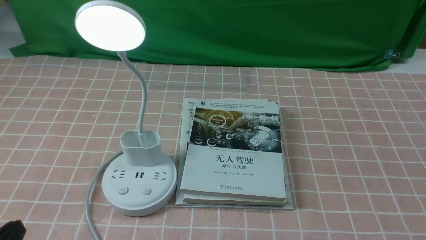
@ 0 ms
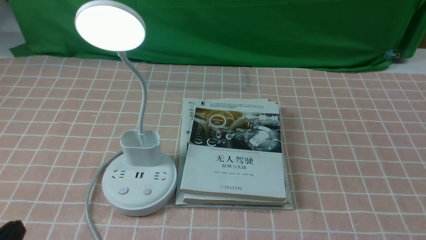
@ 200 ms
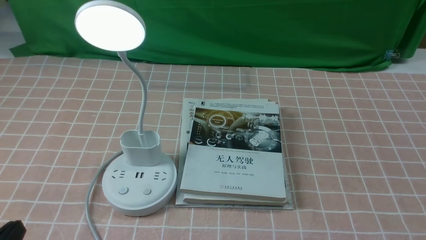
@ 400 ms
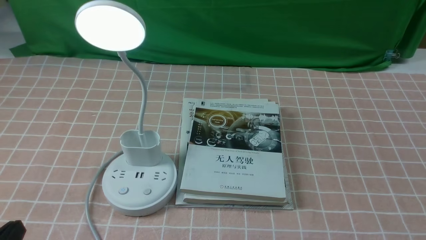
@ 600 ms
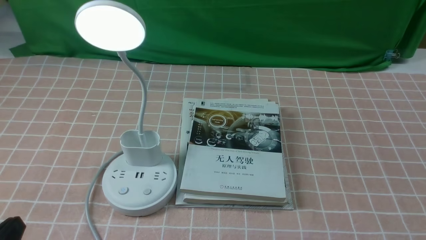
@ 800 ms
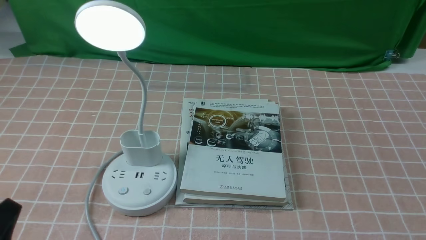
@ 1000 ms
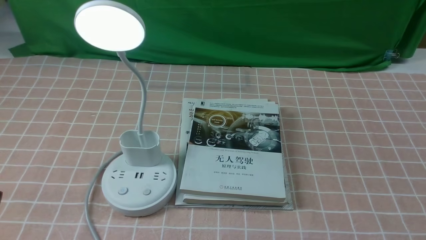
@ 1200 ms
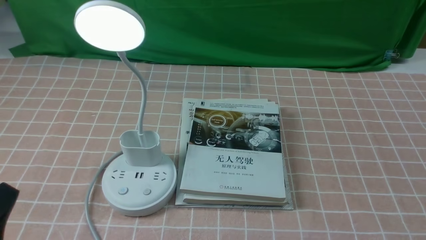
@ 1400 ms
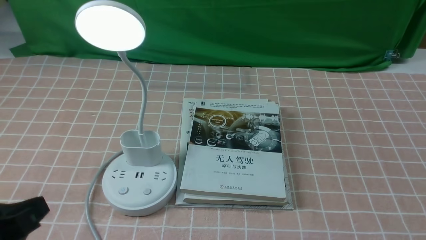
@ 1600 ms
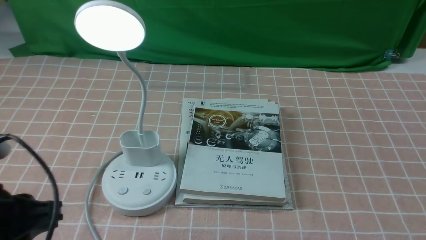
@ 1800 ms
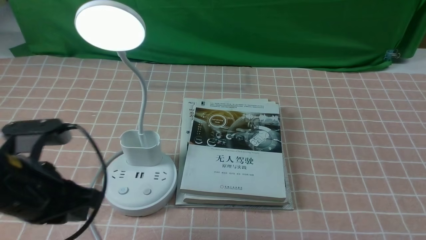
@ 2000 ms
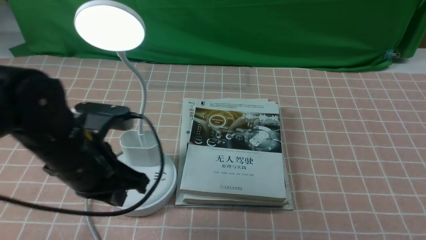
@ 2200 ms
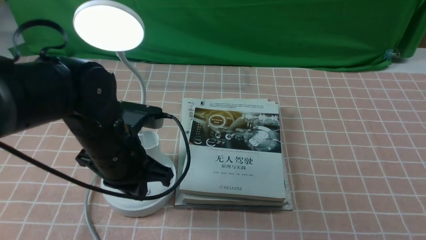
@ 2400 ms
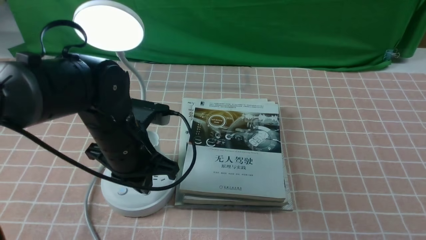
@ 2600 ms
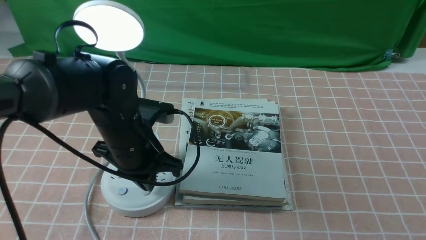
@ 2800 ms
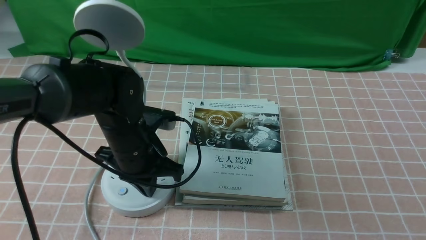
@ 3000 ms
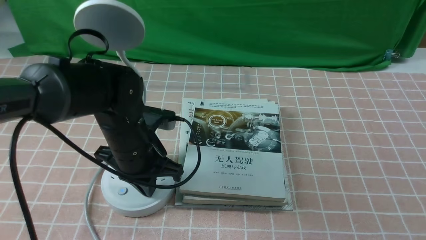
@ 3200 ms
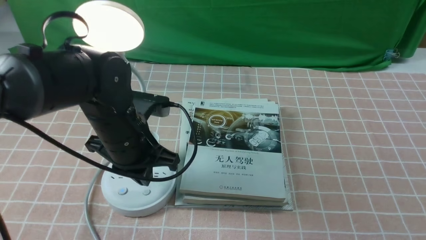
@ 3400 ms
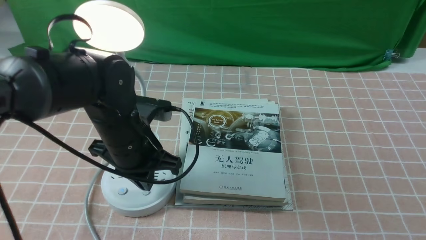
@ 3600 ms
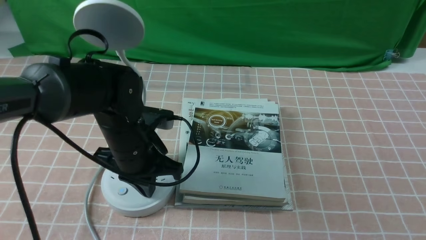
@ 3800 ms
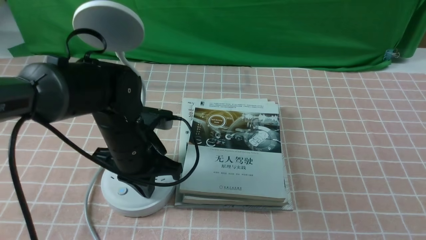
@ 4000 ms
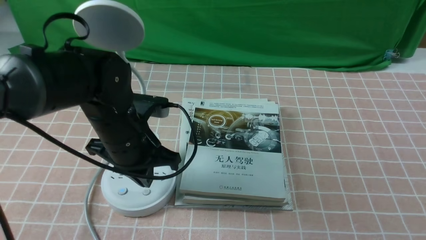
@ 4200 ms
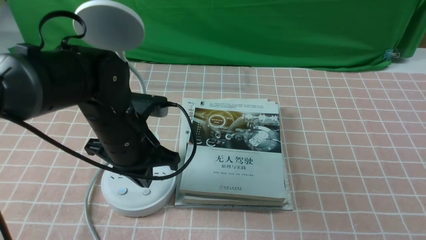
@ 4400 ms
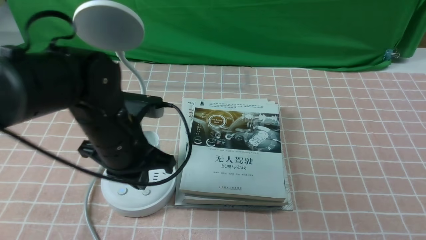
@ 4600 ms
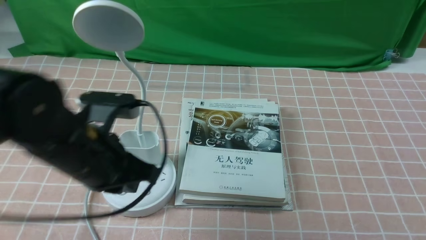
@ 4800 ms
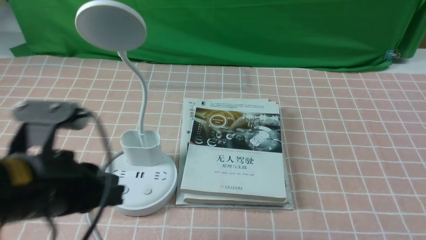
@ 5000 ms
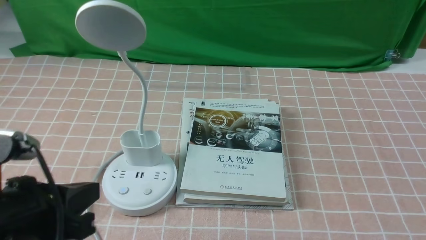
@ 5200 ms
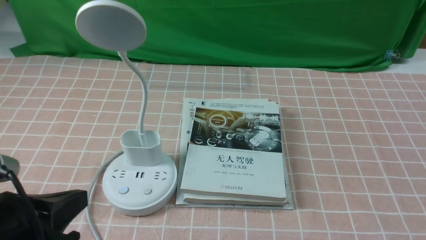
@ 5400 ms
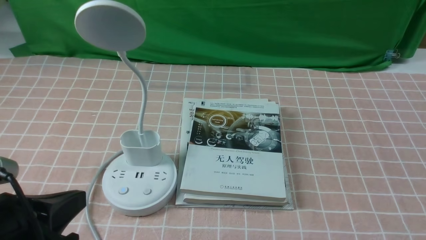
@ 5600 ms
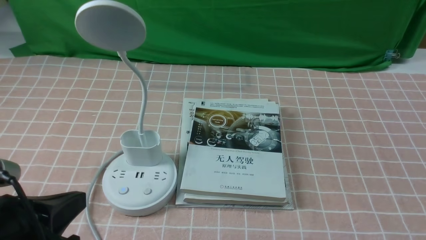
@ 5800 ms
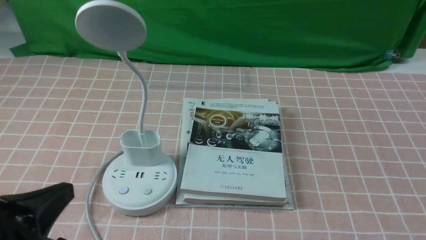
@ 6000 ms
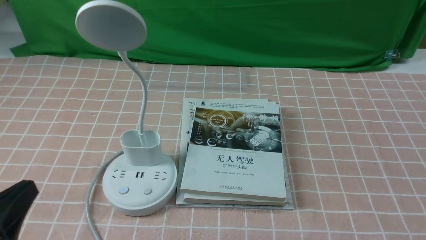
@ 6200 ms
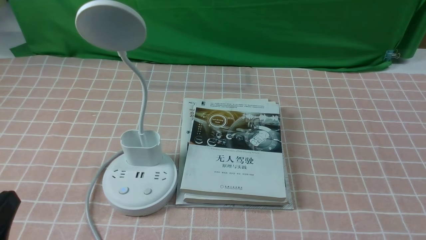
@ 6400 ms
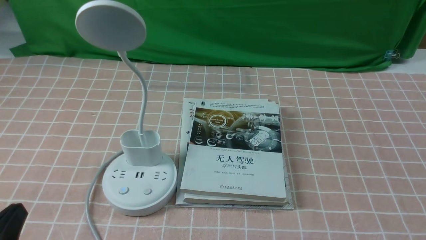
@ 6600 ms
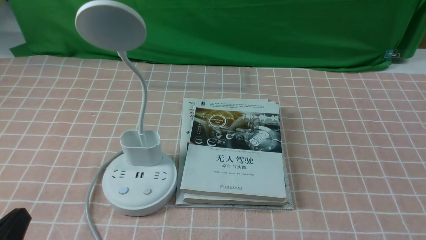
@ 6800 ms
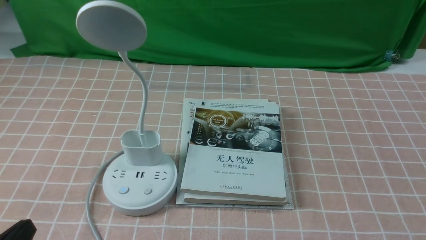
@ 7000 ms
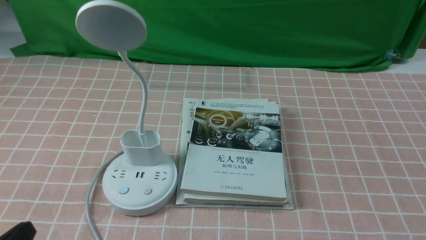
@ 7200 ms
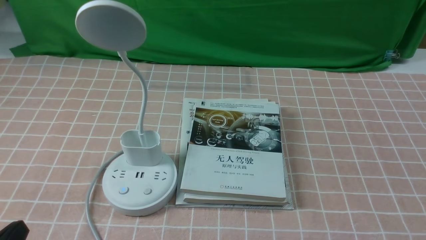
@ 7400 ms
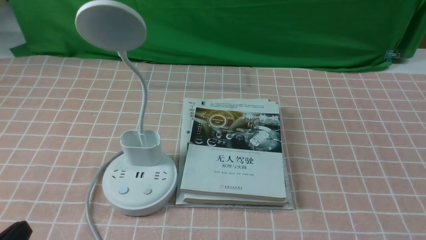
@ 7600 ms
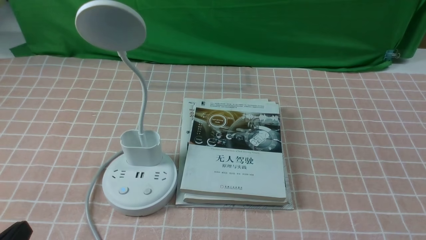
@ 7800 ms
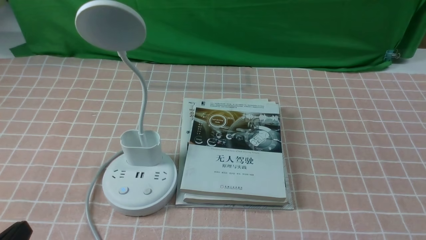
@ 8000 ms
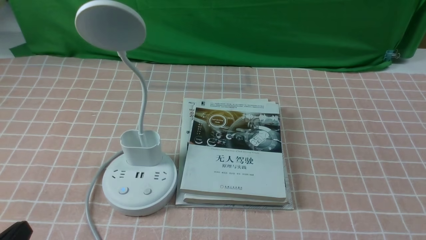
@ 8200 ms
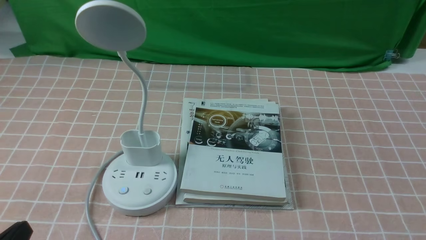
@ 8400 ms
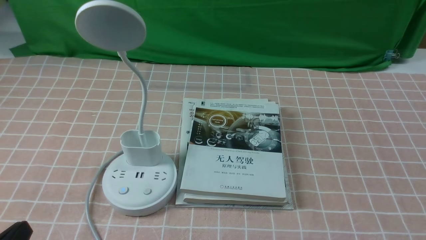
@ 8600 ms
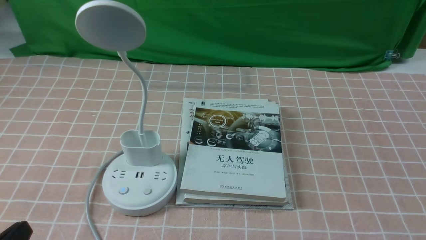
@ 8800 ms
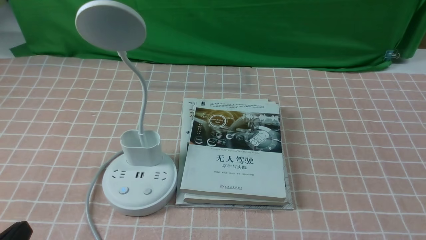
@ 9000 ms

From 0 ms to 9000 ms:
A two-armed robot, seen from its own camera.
Task of the whole recording: turn off the table lamp on the pink coffee tablecloth by hand.
Step, from 0 ms to 4200 ms: use the left arm to press the button switch on the lamp holder.
From 1600 ms to 3000 ms: The left gripper moves forward and to the right, some 25 cm, and closes up.
From 3000 ms to 4400 ms: The grippers make only small movements.
From 4400 ms to 6000 ms: The left gripper moves backward and to the left, approximately 25 cm.
From 6000 ms to 7600 ms: The left gripper travels downward by about 5 cm.
